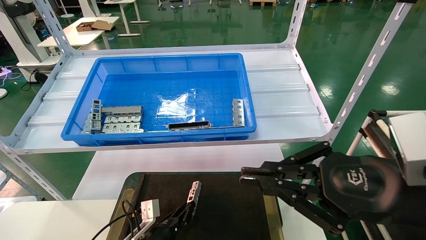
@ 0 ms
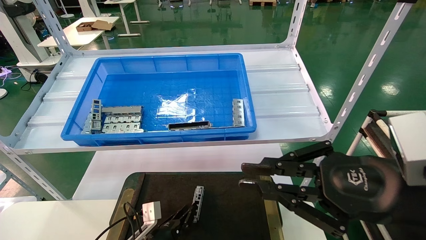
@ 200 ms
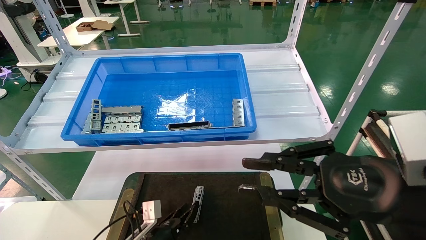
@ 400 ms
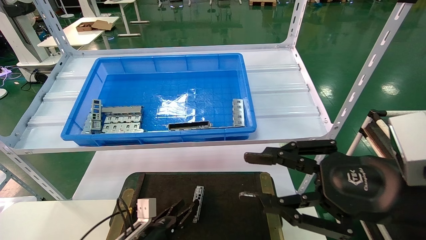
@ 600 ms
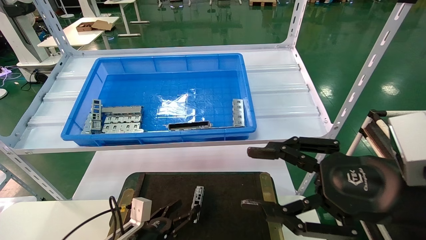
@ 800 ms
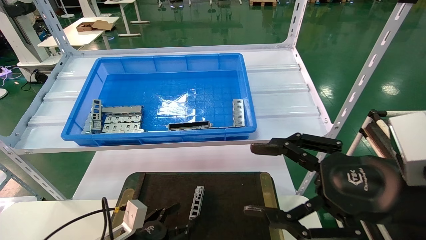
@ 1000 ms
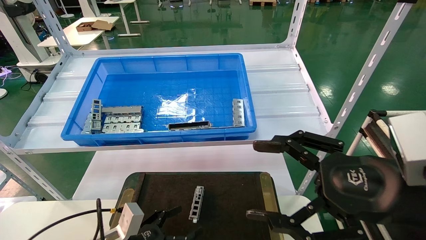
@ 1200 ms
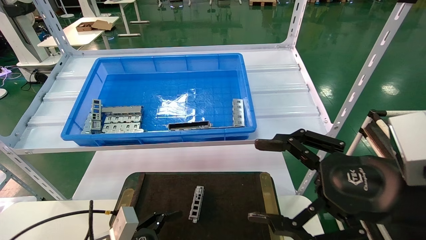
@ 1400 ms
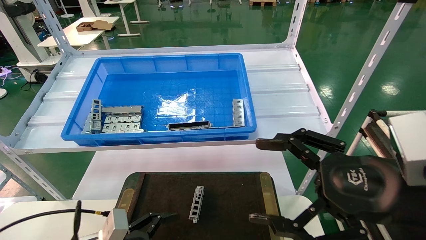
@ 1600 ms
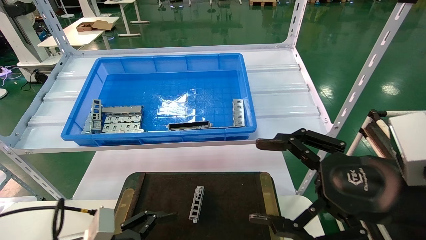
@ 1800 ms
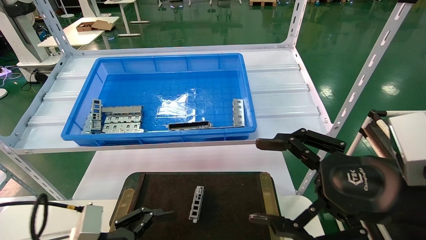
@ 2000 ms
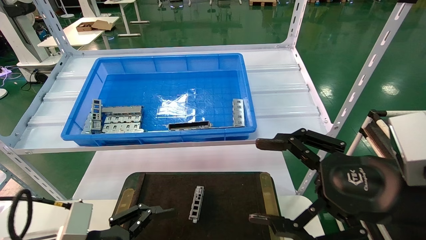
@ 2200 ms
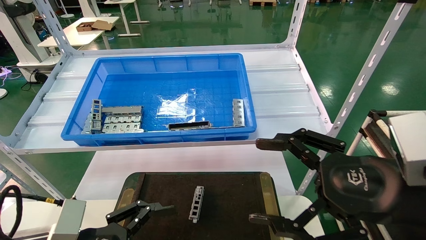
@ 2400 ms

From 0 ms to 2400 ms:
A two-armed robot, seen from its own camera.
Task of the whole recording: Grasp the part with one hand and place it on the black container.
From 0 ms to 1200 ms: The left gripper shifts some 15 cm backward, upward and to the left, and opens, while the right gripper opens up.
From 1200 ms to 2400 ms: The left gripper moves upward and backward, approximately 15 cm.
